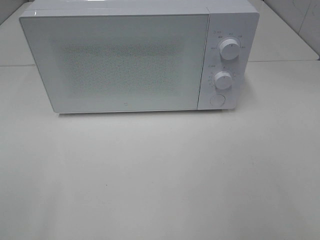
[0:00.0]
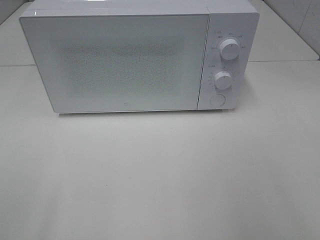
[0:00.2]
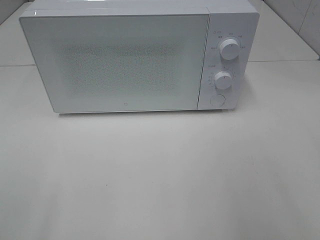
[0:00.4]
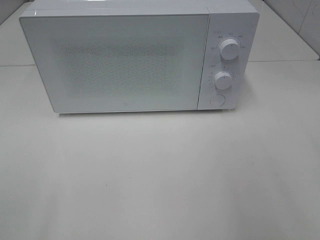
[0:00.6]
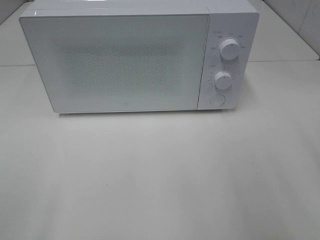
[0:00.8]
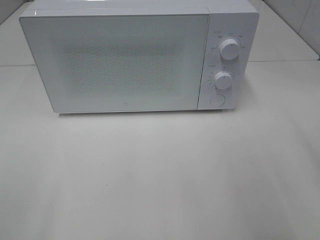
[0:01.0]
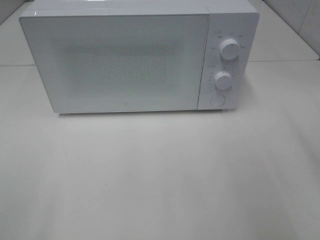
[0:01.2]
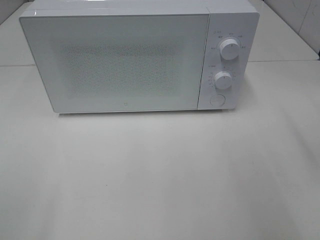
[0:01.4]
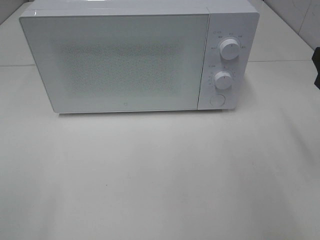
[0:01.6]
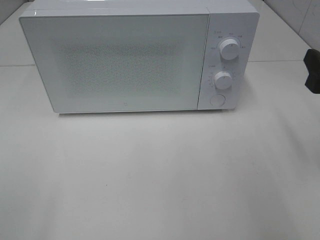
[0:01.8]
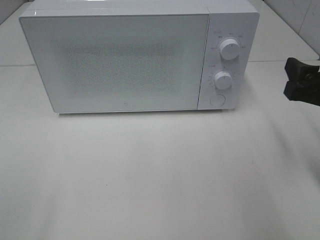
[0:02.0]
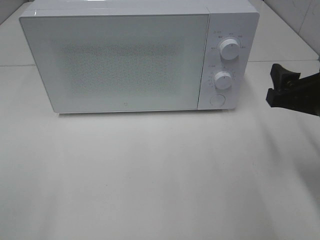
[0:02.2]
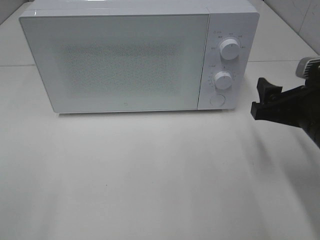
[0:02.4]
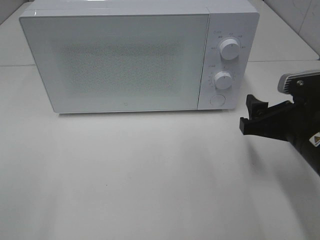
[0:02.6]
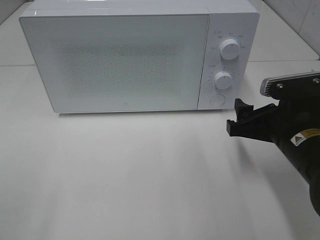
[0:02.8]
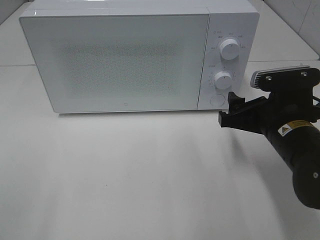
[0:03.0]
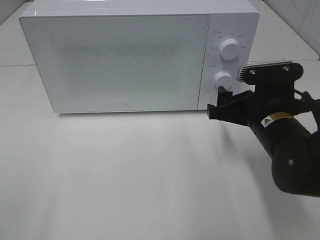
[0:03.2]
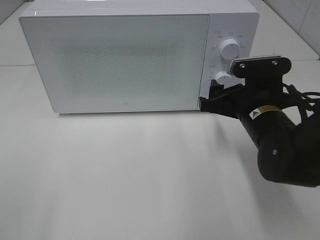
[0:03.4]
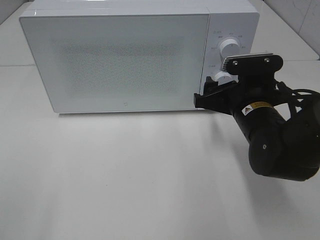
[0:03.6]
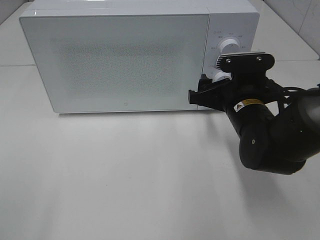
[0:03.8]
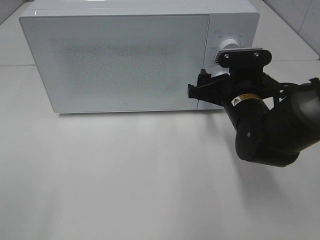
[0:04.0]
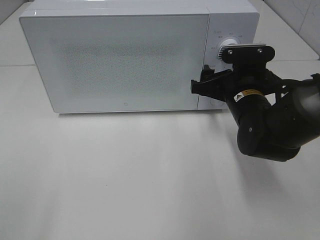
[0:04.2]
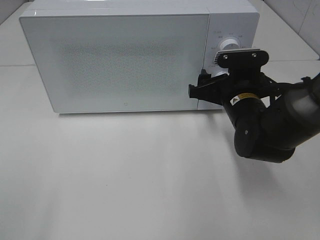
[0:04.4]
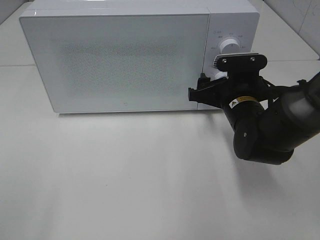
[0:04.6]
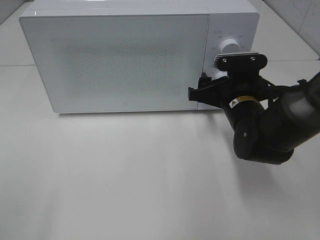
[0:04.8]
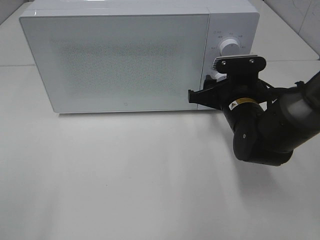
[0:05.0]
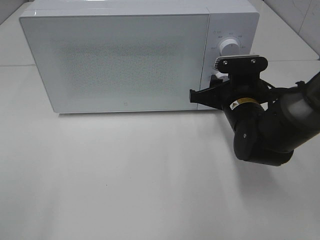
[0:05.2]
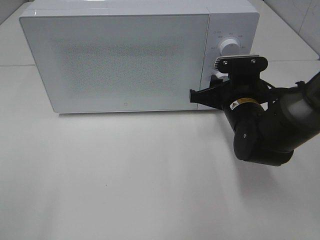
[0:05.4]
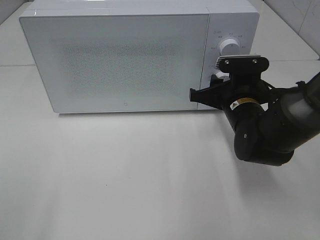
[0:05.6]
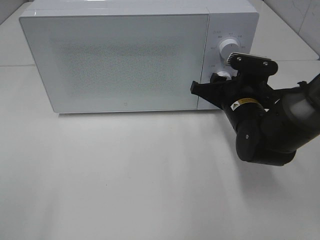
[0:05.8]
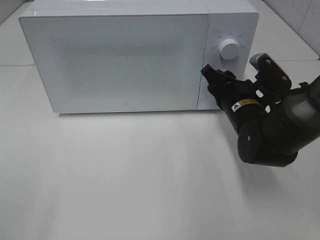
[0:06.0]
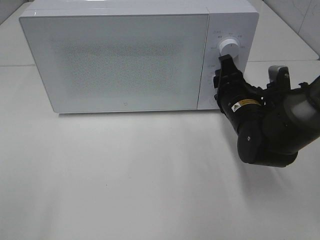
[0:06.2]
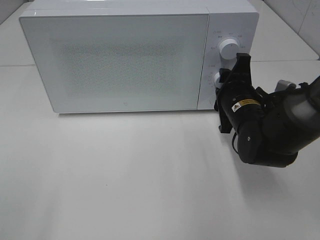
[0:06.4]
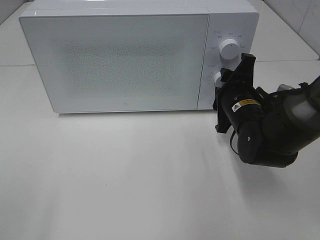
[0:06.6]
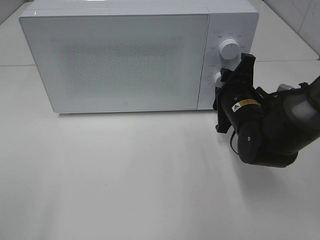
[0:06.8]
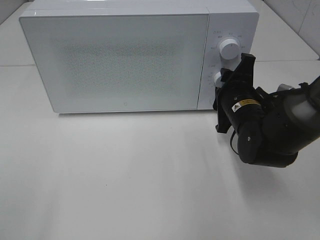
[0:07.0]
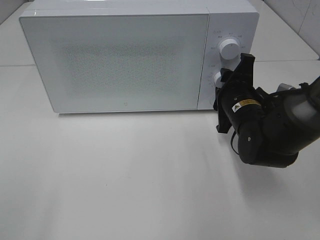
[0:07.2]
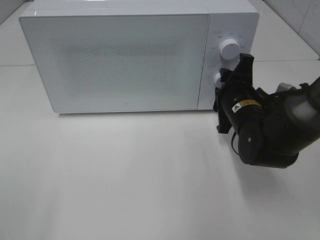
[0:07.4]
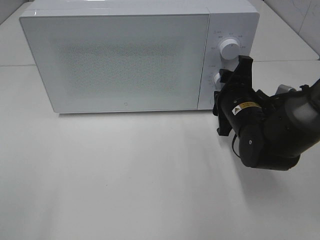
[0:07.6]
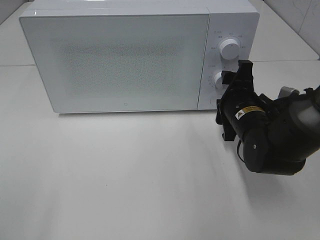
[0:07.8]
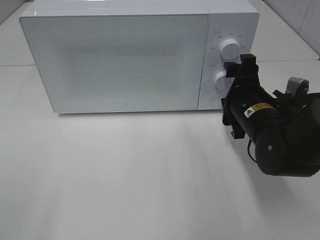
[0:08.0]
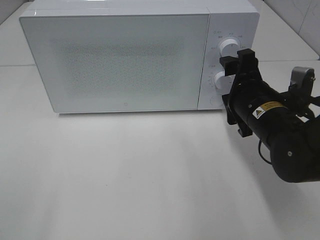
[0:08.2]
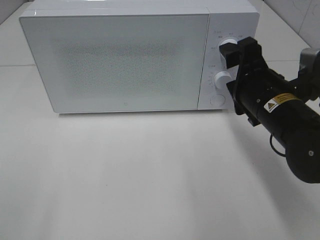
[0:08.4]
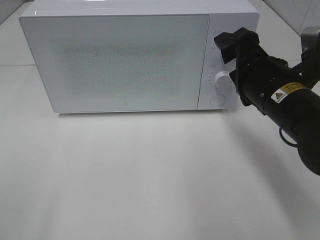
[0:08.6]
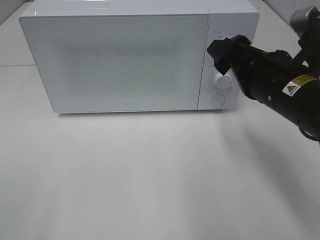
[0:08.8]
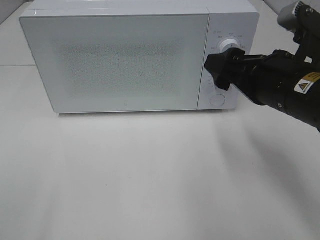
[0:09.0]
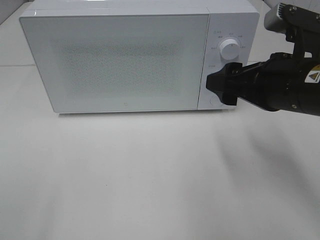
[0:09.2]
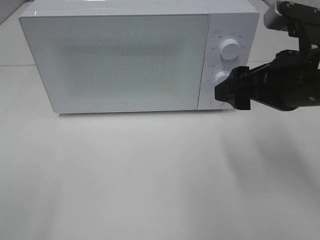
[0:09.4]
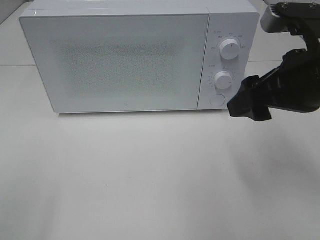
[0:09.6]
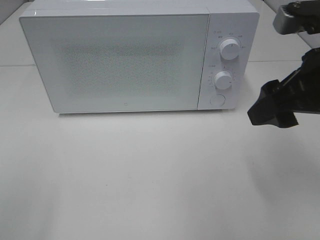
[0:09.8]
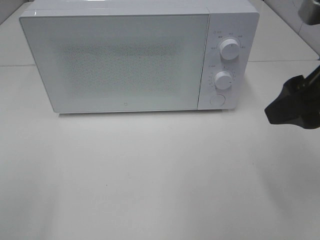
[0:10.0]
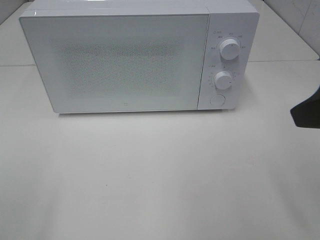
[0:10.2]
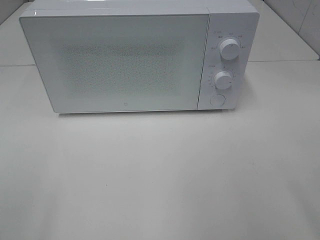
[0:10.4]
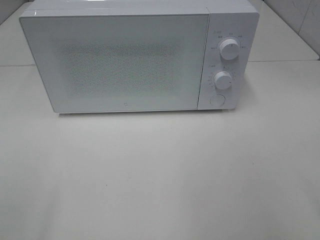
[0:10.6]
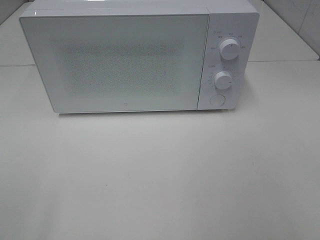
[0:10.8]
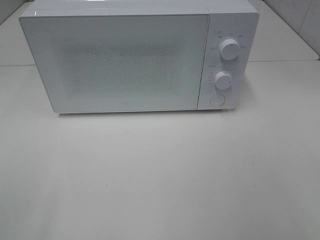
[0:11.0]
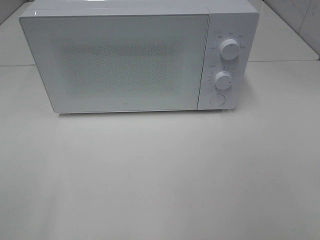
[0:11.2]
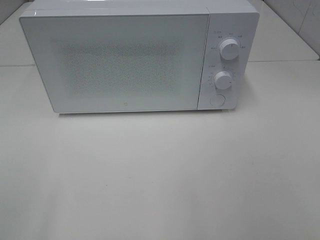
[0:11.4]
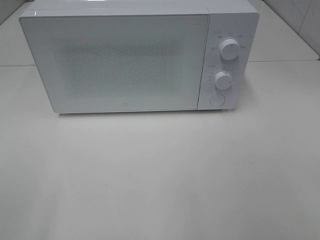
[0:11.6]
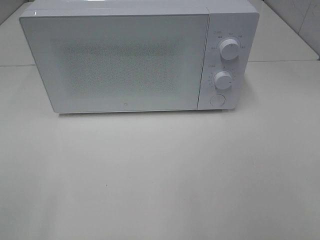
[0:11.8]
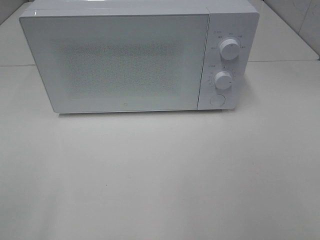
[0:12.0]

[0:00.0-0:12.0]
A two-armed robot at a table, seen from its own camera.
Task of the whole recording: Heat the burger.
Step, 0:00.0 to 0:07.6: Right hand: twist timer button.
0:01.6 to 0:03.0: The right gripper shifts approximately 15 cm to the left and downward.
0:03.0 to 0:04.4: The right gripper travels forward by approximately 10 cm.
0:04.4 to 0:06.0: The right gripper closes.
0:07.6 to 0:09.0: The right gripper travels upward and backward by some 15 cm.
0:09.0 to 0:10.4: The right gripper heads backward, upward and to the right, covering some 20 cm.

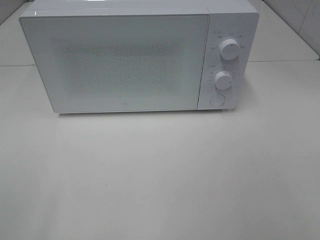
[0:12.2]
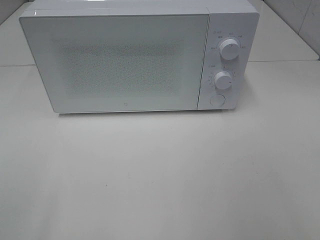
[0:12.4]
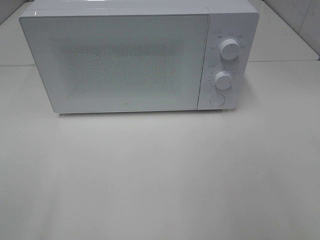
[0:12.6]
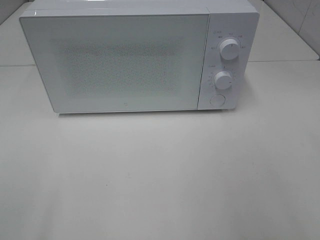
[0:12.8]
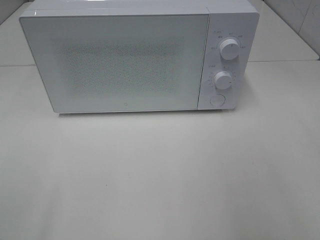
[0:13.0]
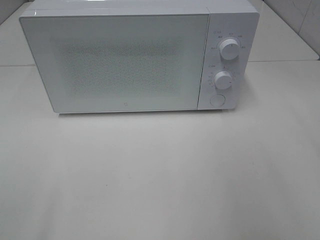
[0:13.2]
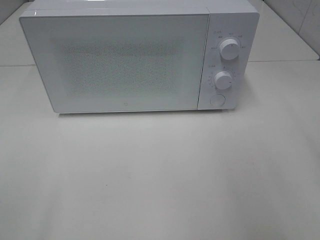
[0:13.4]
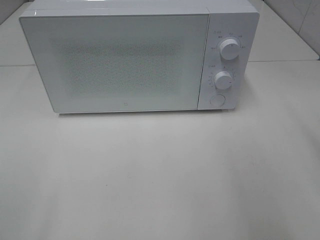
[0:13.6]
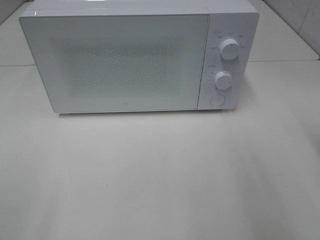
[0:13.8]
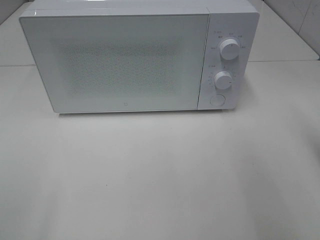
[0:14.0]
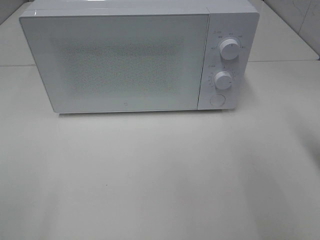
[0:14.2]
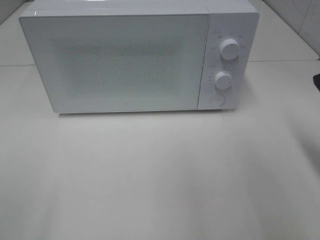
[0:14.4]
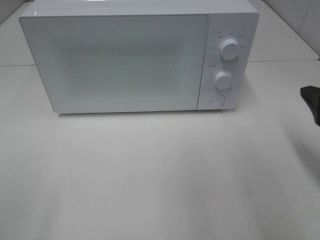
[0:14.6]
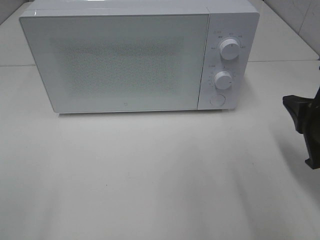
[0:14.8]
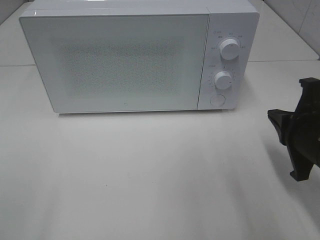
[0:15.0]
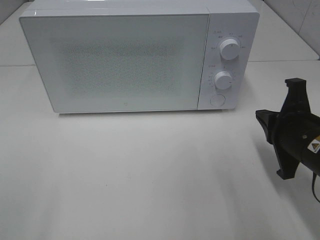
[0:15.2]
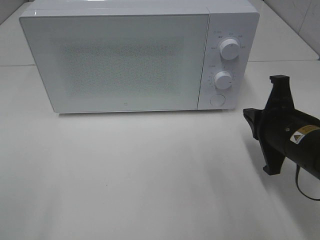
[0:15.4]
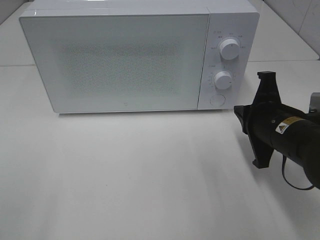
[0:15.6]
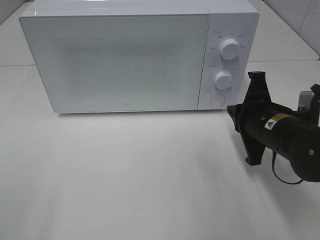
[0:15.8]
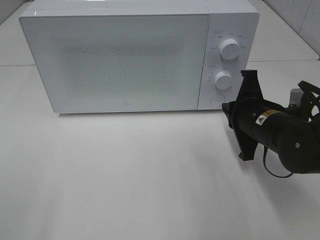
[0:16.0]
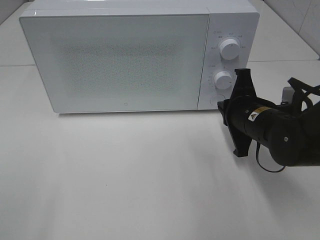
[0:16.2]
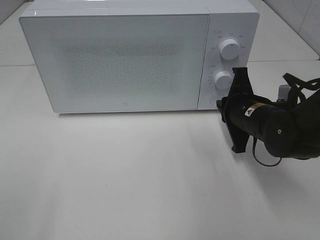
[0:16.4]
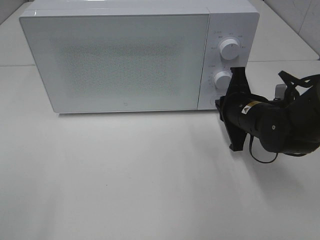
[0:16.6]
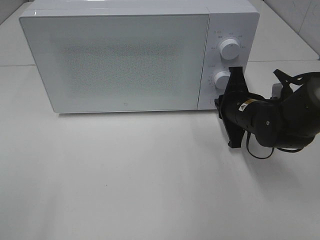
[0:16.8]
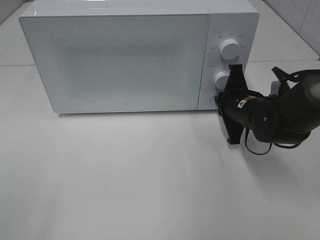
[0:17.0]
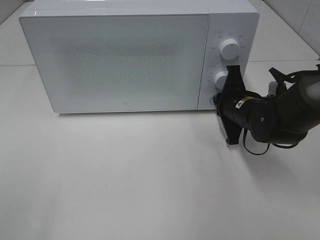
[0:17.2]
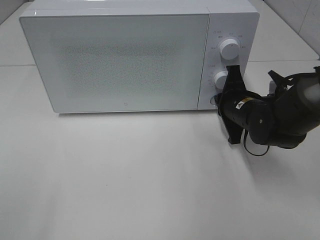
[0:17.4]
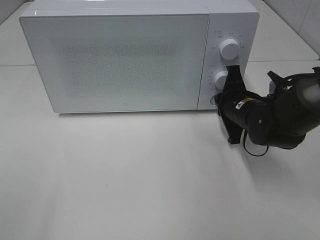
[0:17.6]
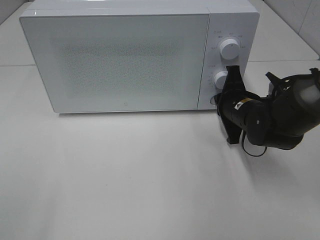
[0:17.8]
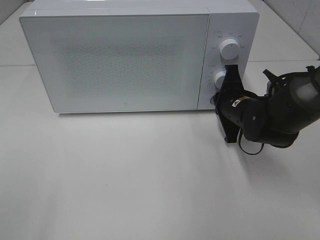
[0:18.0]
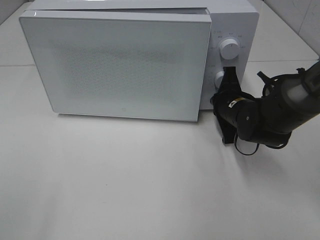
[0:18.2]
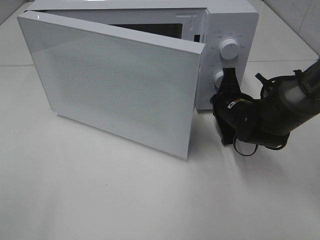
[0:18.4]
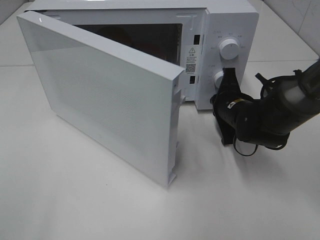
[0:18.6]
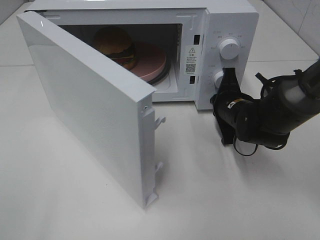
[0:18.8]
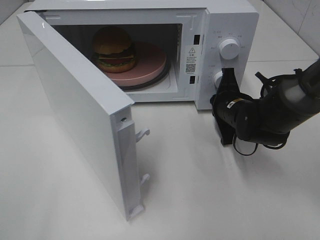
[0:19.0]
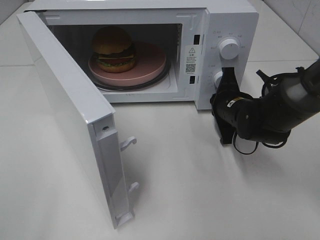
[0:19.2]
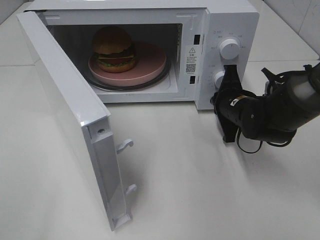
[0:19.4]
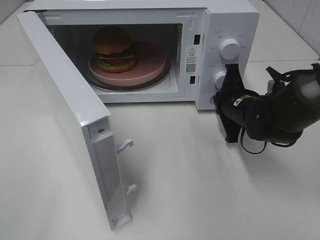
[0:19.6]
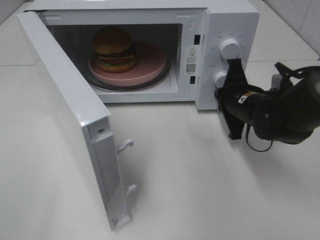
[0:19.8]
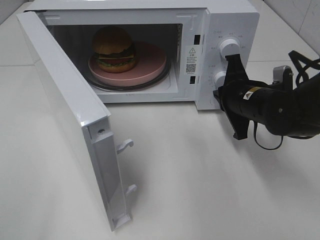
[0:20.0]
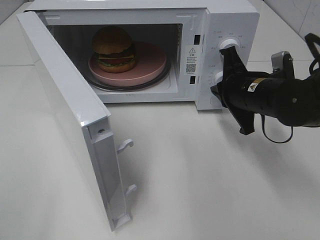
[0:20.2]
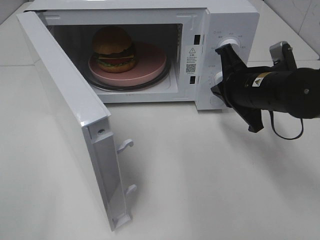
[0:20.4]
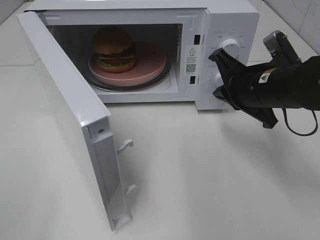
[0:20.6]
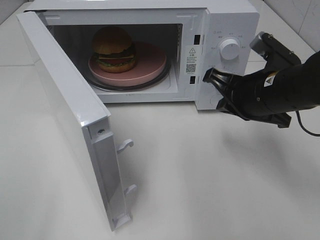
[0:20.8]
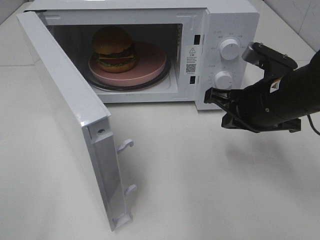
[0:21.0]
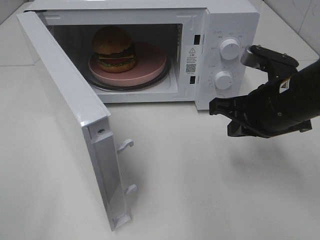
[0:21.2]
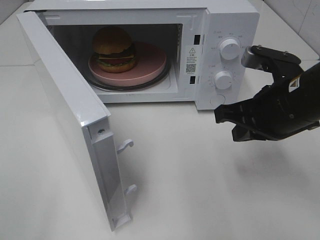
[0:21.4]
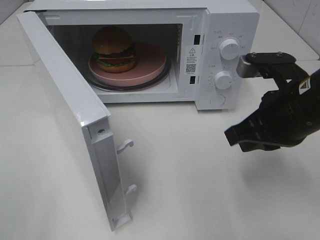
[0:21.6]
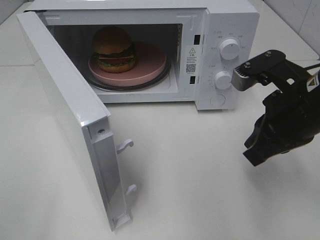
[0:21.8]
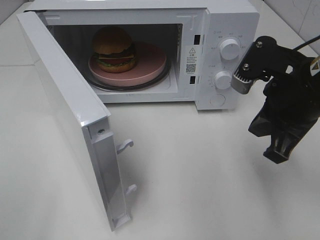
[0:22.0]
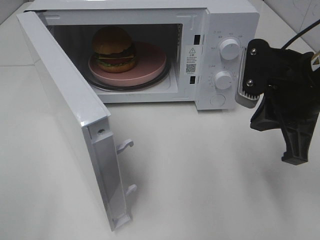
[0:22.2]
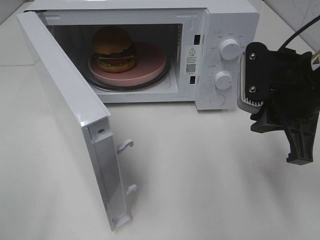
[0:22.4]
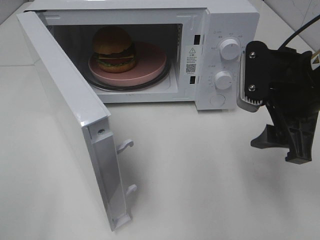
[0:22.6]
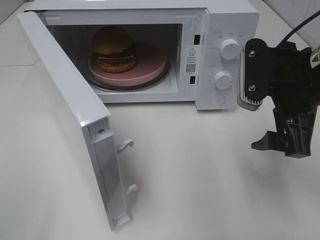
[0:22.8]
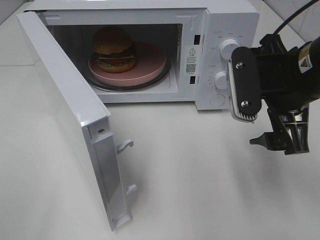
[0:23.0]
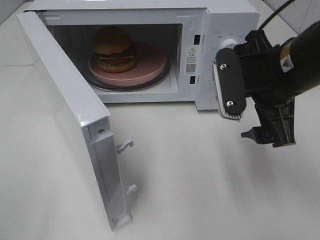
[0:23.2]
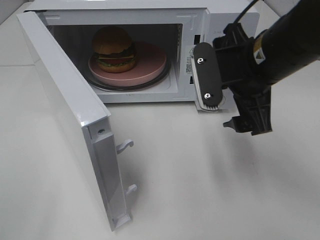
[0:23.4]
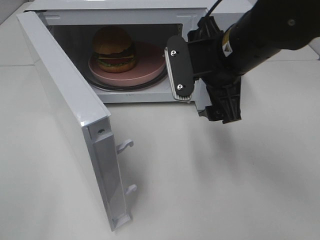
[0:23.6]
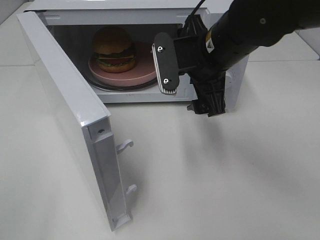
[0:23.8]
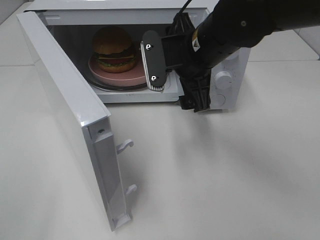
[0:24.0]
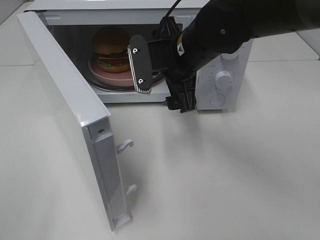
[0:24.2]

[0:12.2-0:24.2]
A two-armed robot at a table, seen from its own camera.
Task of the whole recording: Heat the burger.
Step, 0:12.2 to 0:19.6: Right hand: press the switch.
0:13.8 to 0:15.2: The right gripper heads downward and to the left, covering approximately 15 cm.
0:15.2 to 0:16.6: The right gripper moves forward, roughly 10 cm.
0:16.6 to 0:18.2: There are only small adjustments of the grippers.
0:19.8 to 0:21.2: The right gripper heads backward and upward, covering some 10 cm.
0:21.2 to 0:22.6: The right gripper moves approximately 5 cm, and opens up.
0:22.6 to 0:24.2: The right gripper shifts approximately 15 cm to the left and forward.
